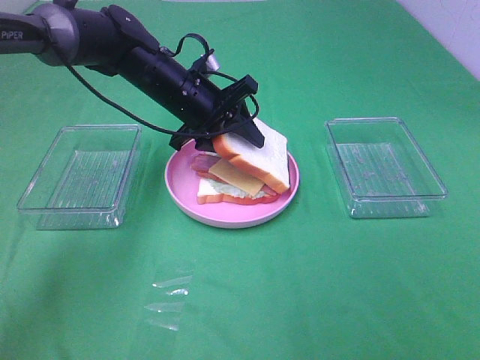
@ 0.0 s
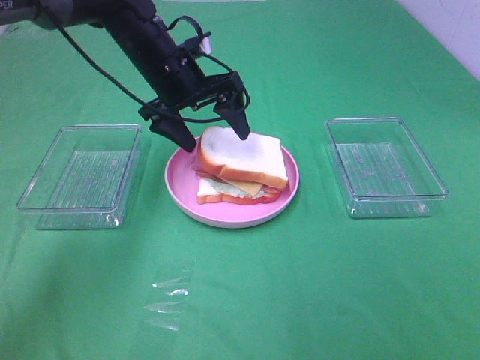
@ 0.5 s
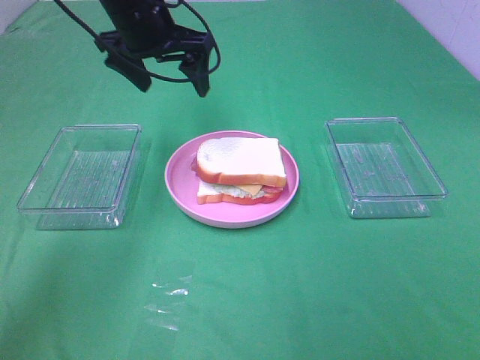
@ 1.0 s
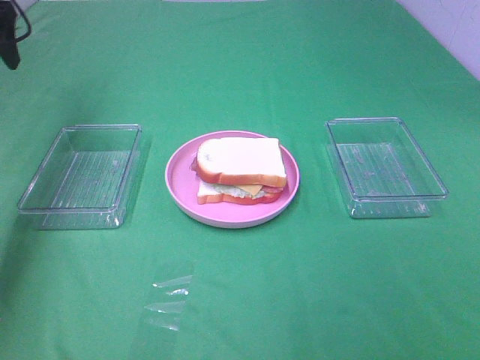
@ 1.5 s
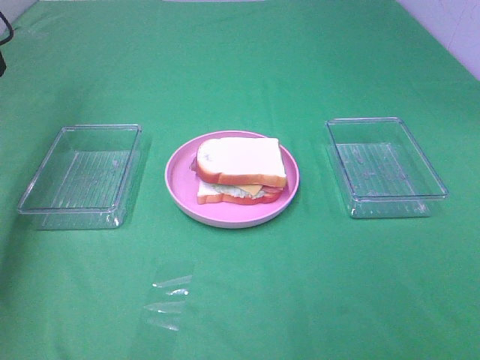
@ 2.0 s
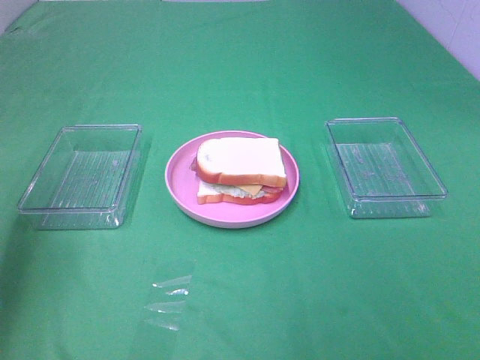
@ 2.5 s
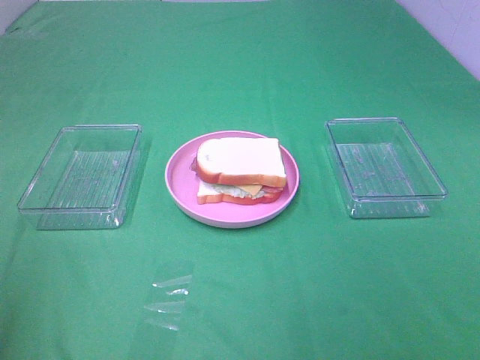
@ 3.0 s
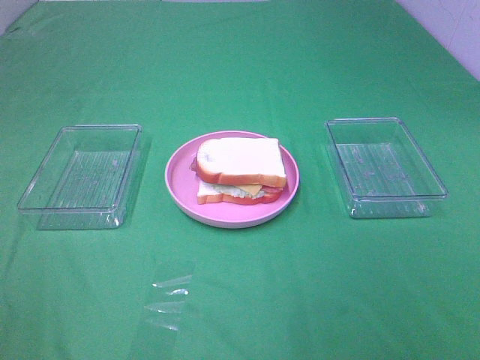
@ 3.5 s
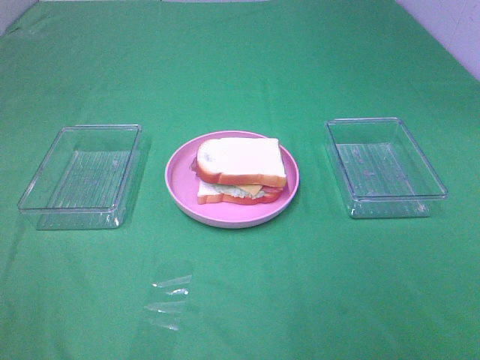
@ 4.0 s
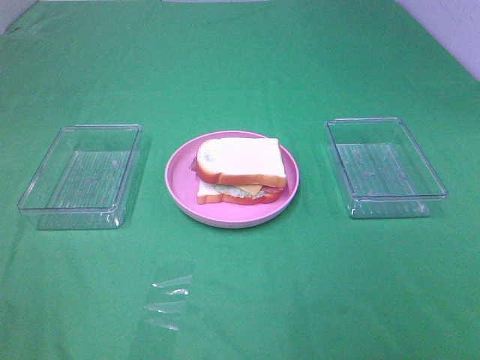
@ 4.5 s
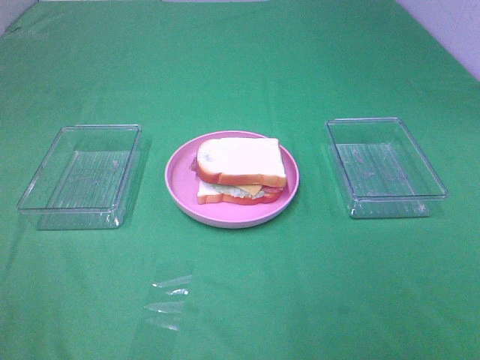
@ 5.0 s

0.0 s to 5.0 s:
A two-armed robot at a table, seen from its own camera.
Task of the whole recording: Make sandwiches.
0.0 to 2.5 s: The left gripper is displaced to the left, backward and upward by some 35 cm, and opens its fingers.
2.5 to 5.0 s: The left gripper shifts about 25 cm backward.
